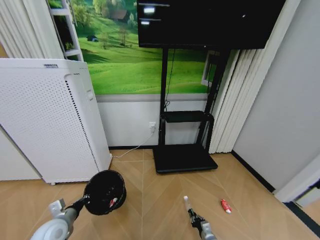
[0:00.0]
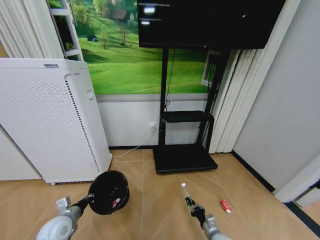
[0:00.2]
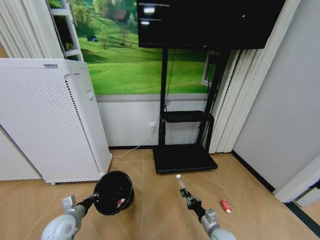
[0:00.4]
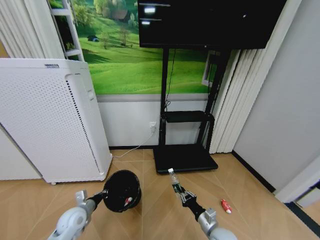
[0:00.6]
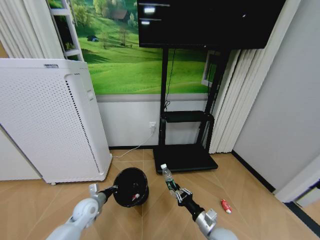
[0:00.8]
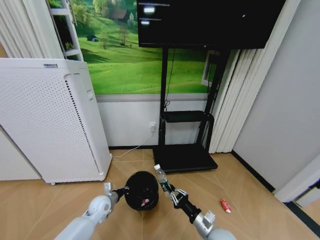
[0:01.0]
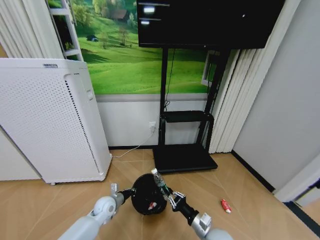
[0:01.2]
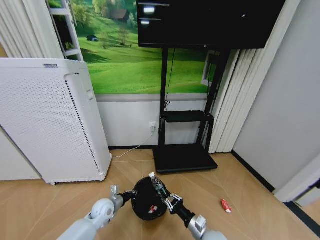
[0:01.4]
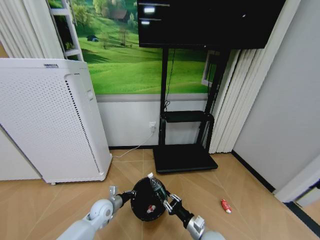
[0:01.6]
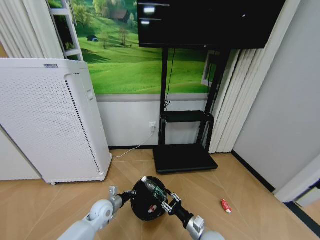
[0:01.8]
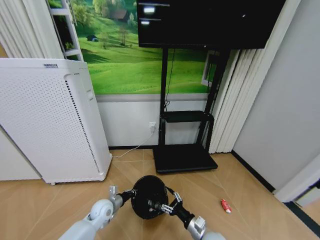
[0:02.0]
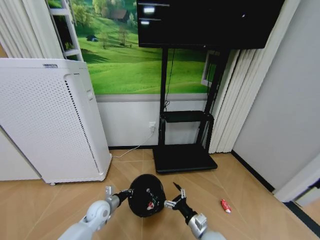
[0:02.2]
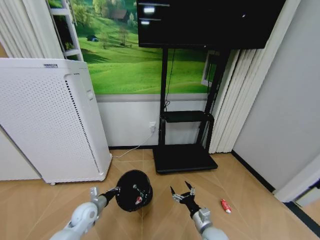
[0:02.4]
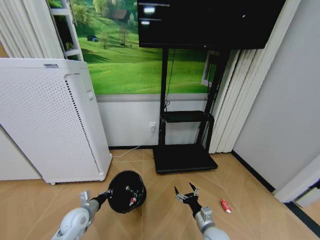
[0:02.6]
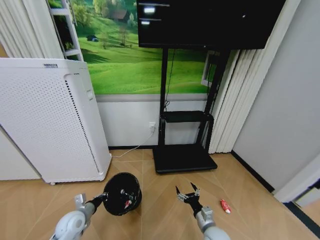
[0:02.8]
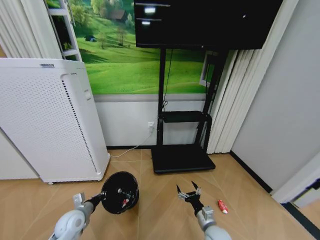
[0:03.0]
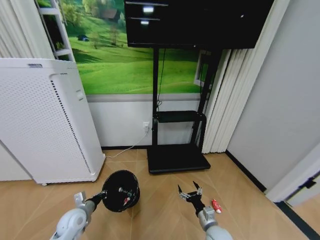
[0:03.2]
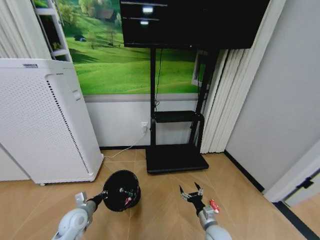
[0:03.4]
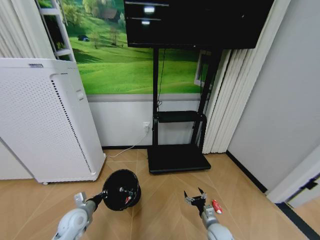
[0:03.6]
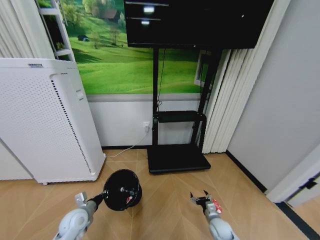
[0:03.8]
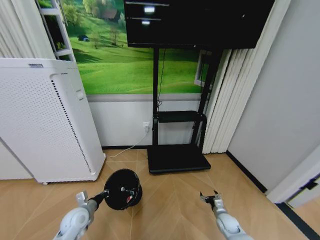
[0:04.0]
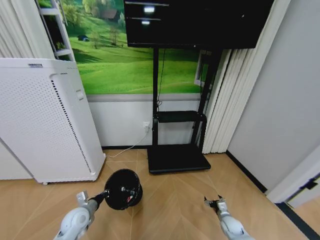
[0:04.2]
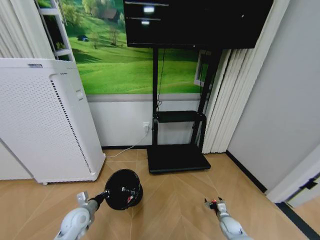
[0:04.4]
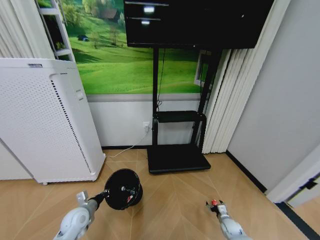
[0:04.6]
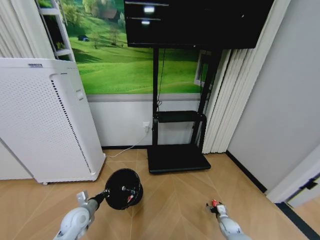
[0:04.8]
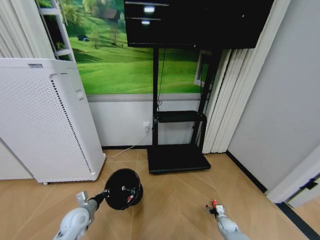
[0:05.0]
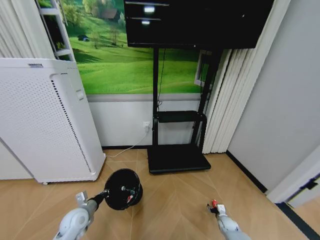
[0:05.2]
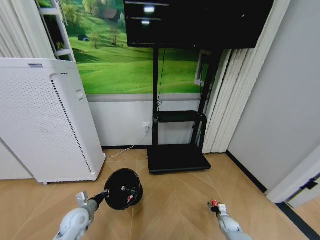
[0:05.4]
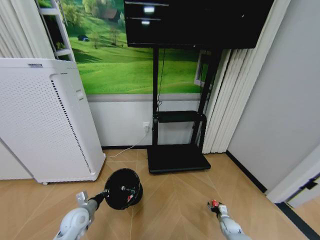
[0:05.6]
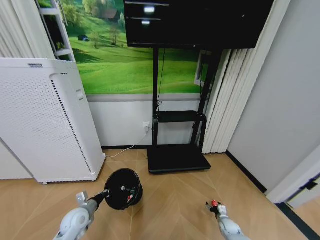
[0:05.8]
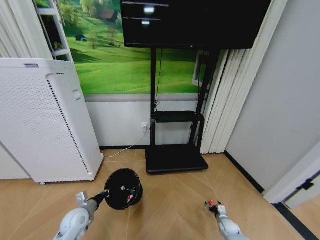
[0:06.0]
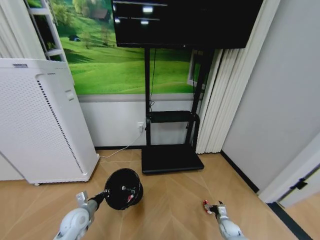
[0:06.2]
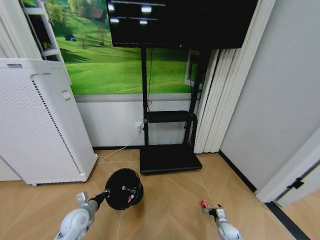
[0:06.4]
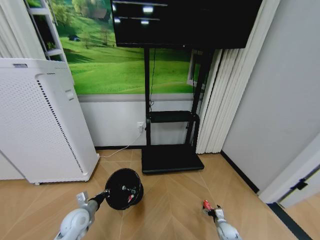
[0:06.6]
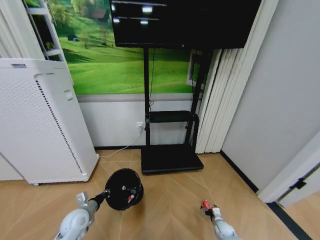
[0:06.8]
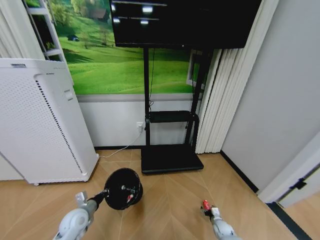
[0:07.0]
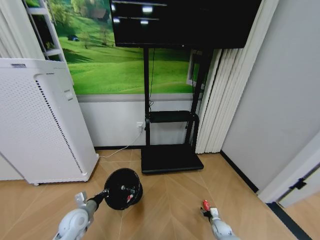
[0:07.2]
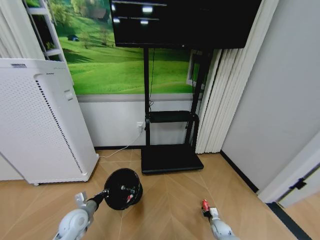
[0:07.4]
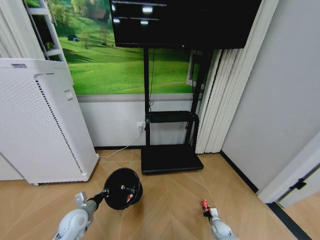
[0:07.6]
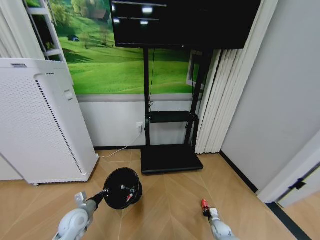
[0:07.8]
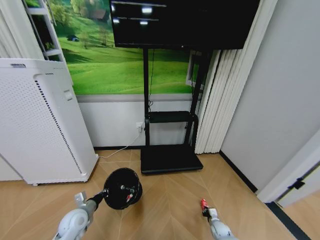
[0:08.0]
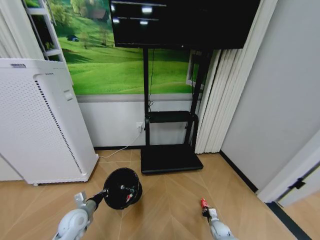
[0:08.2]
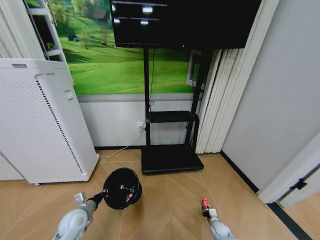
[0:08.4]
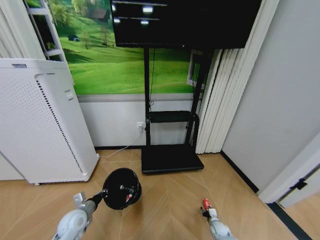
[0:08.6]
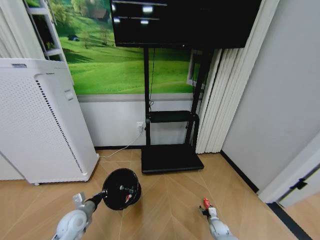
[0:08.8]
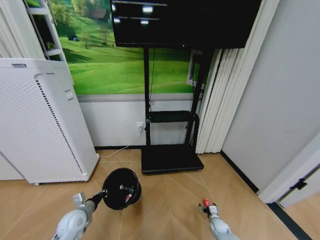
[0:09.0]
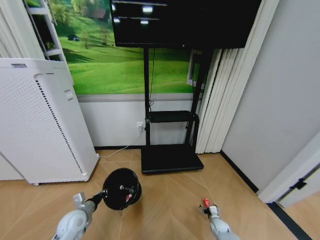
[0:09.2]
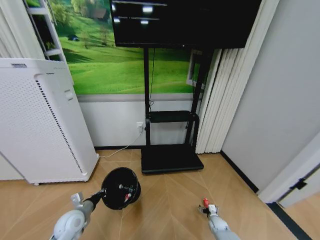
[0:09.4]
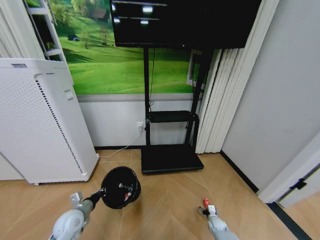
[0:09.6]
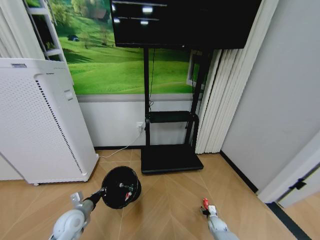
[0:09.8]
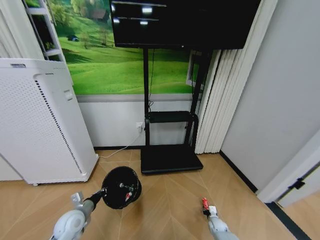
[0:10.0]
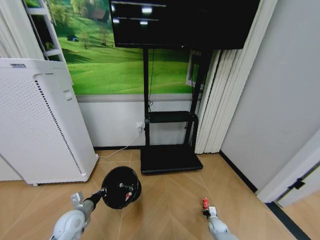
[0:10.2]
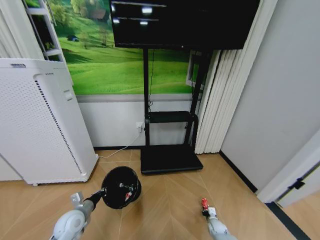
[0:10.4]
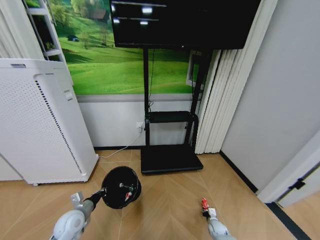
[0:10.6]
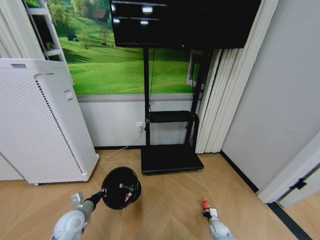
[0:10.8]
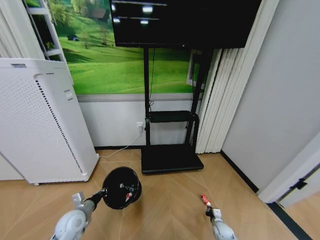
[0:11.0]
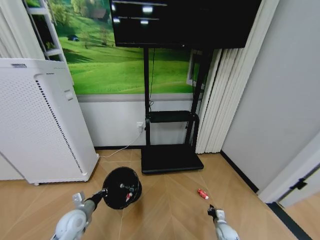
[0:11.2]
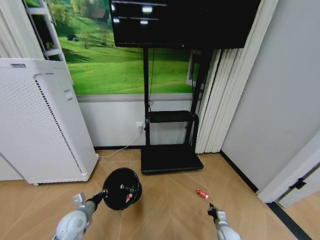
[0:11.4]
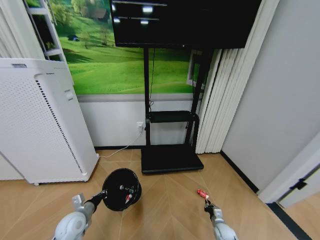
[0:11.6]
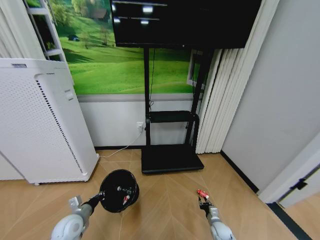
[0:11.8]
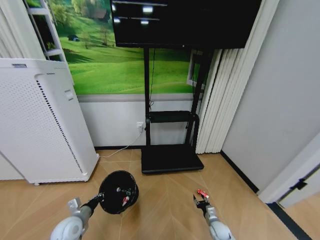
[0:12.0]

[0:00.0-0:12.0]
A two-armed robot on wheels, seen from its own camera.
Task of the whole recording: Pick up the trash bin and place the garbage on the floor into it.
0:00.0 to 0:01.6: The right gripper shifts some 20 cm upward and to the left; the left gripper shifts approximately 15 cm to the right, forward and downward.
0:01.6 to 0:03.0: The right gripper opens up, while the left gripper shifts some 10 cm to the left and backward.
0:03.0 to 0:04.4: The right gripper is displaced to the right, downward and forward by about 25 cm.
0:04.4 to 0:06.0: The grippers make only small movements.
0:06.0 to 0:07.6: The right gripper closes up.
0:07.6 to 0:09.0: The right gripper opens up.
0:09.0 to 0:10.4: The right gripper closes up.
0:10.4 to 0:12.0: The right gripper travels upward by some 5 cm.

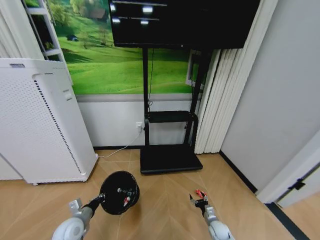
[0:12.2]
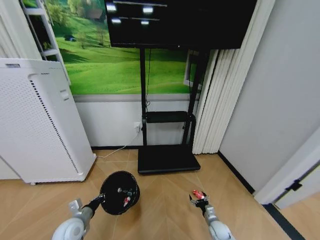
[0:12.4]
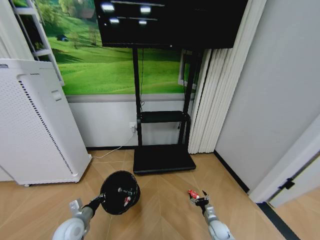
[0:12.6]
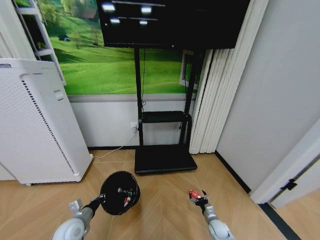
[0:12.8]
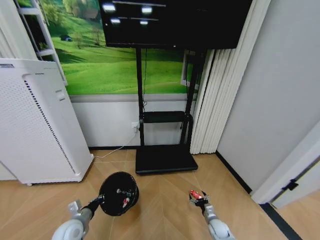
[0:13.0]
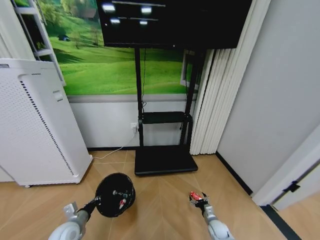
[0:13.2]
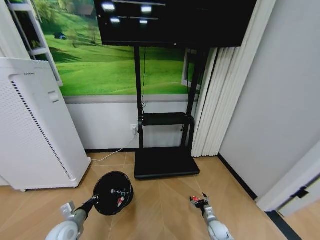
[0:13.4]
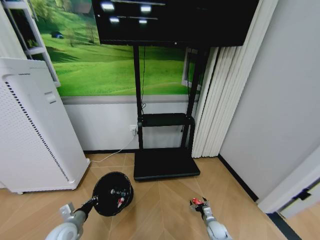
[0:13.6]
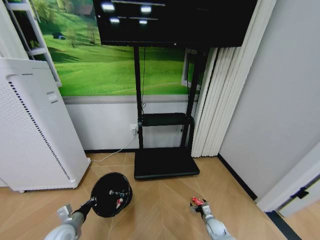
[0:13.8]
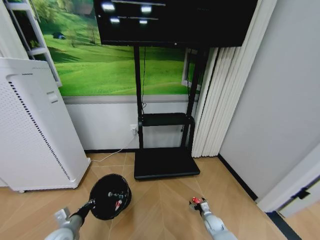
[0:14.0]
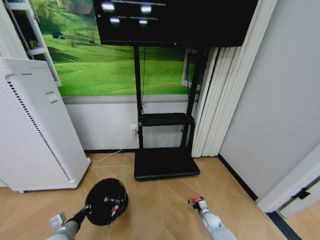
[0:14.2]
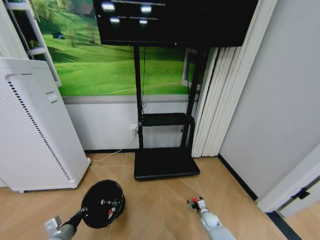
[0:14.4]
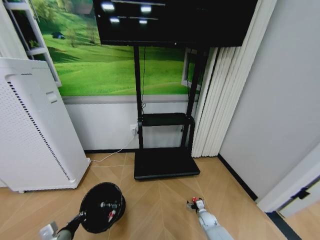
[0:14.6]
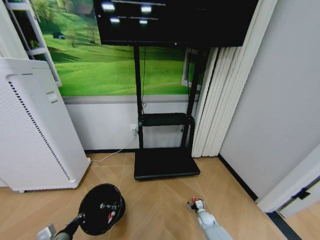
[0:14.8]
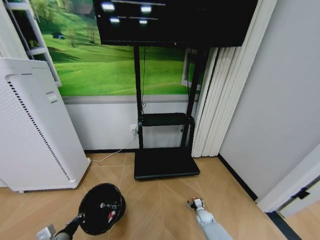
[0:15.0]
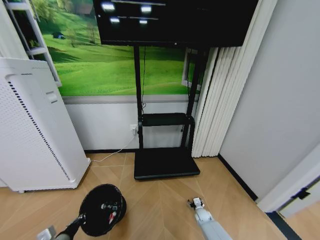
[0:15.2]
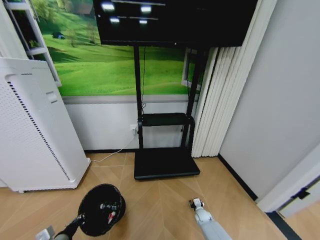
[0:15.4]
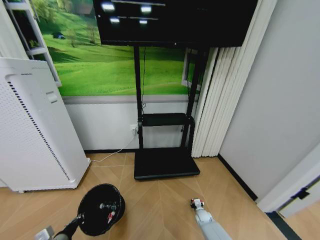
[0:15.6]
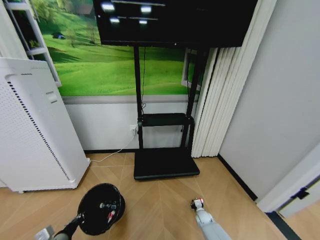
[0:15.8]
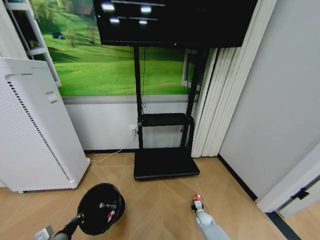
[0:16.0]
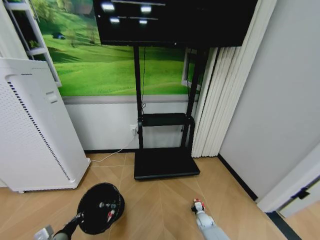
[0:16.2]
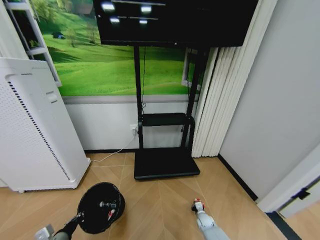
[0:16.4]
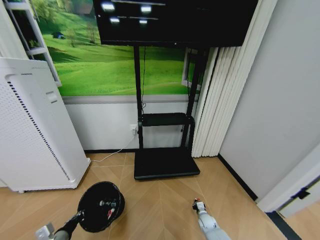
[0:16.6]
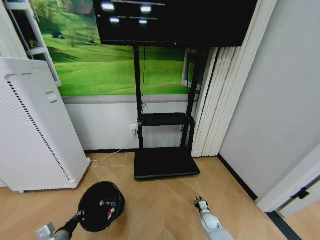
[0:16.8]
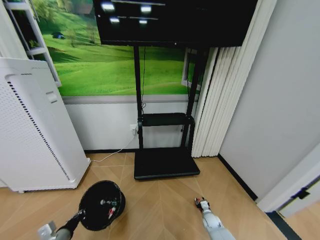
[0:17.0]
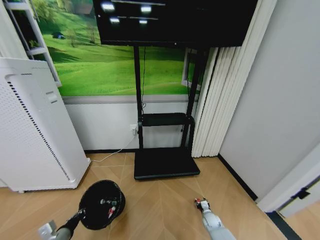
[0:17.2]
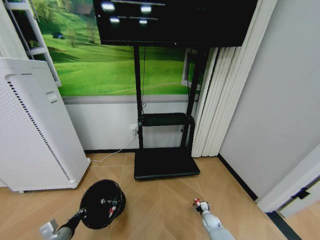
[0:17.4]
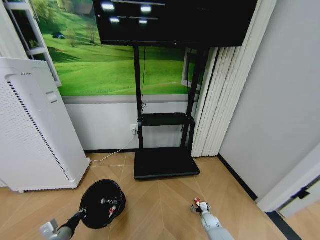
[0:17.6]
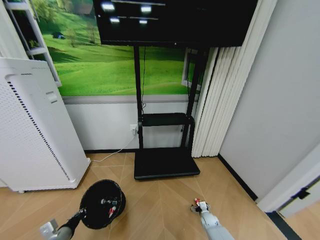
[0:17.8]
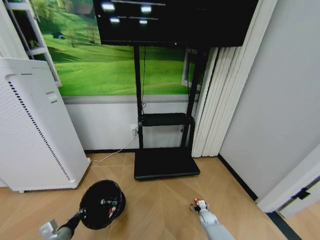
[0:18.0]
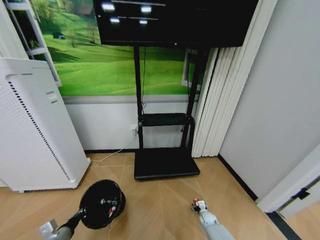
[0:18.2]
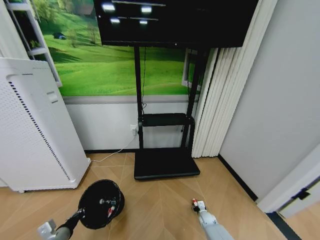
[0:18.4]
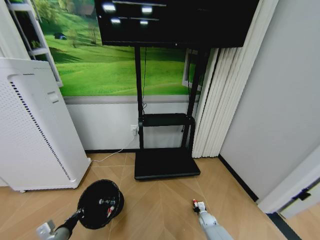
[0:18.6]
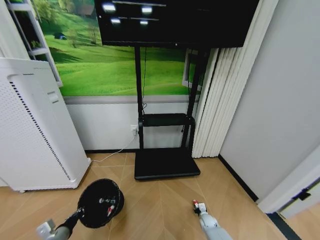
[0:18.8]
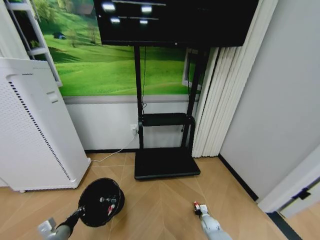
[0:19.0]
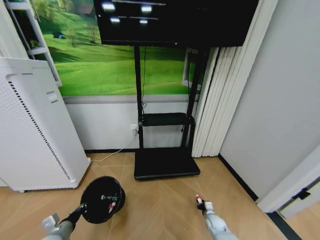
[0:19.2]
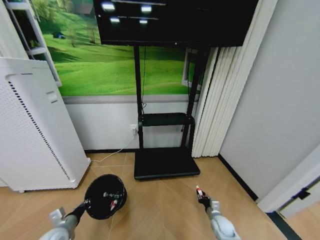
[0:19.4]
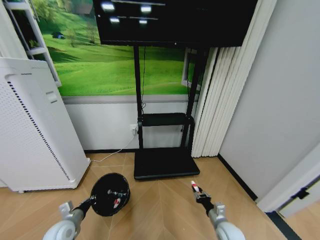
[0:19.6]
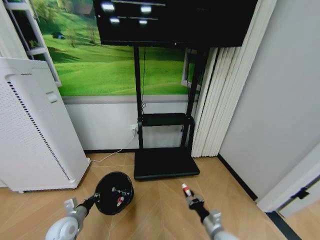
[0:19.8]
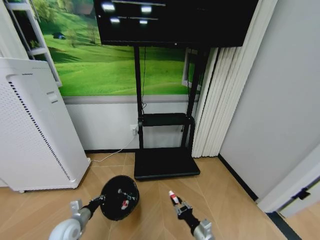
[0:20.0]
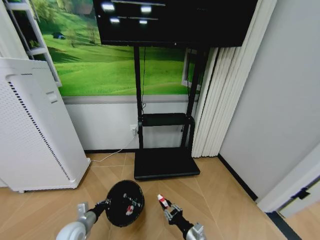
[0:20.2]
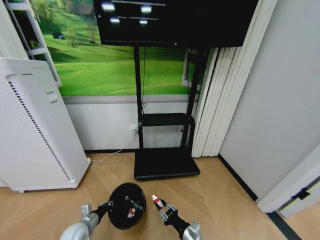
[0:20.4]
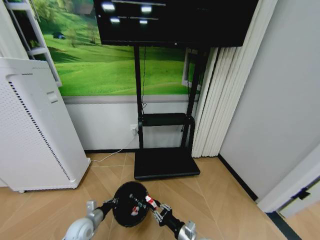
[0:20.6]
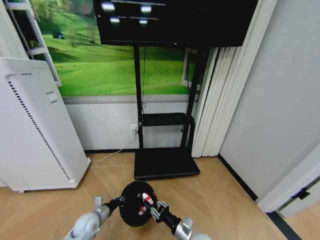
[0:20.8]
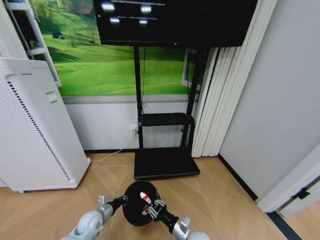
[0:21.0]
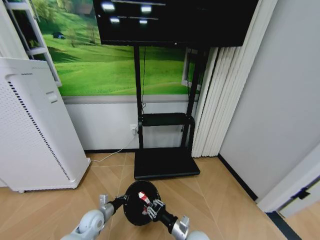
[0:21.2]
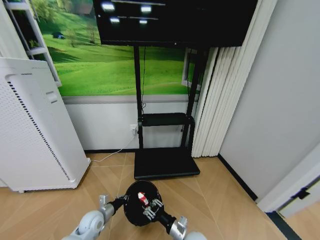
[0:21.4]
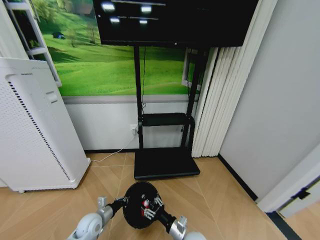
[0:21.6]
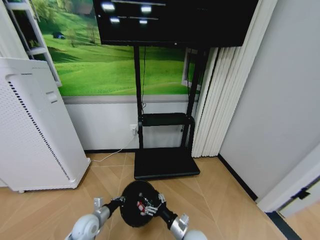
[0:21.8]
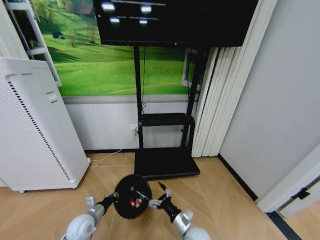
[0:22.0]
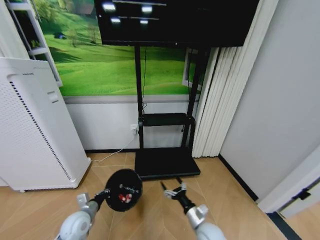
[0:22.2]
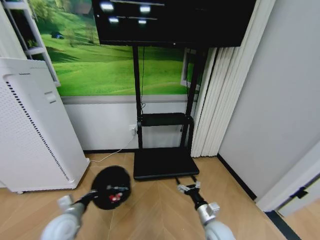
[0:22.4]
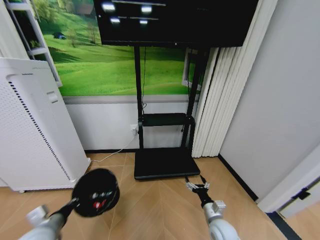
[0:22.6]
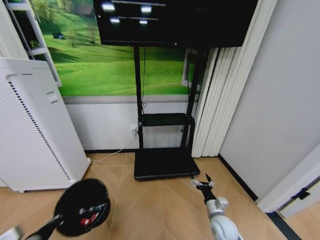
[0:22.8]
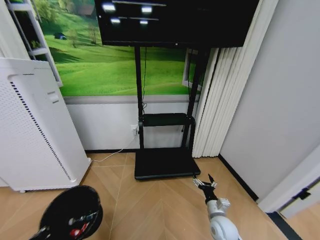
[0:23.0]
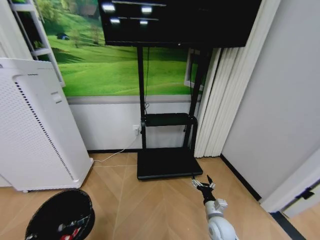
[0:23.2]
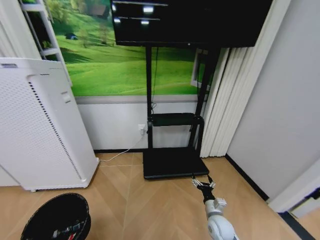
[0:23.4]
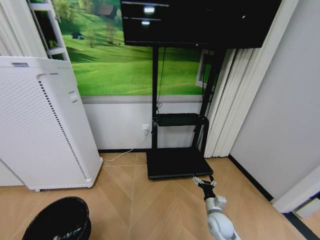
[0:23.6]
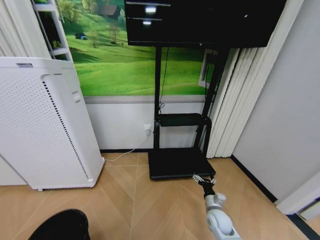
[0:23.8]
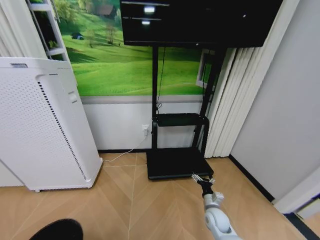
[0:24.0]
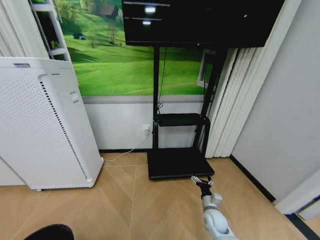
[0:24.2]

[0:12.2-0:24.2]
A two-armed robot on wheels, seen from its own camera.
Task of the whole recording: Pick up the trash bin and place the garbage on the floor into it.
0:13.8 to 0:15.2: The right gripper is displaced forward by approximately 5 cm. Meanwhile the left gripper moves backward, roughly 5 cm.
0:15.2 to 0:16.6: The right gripper closes up.
0:16.6 to 0:18.2: The right gripper opens its fingers.
0:18.2 to 0:19.8: The right gripper shifts about 25 cm upward and backward, and closes its fingers. The left gripper shifts some 10 cm forward.
0:19.8 to 0:21.2: The right gripper shifts roughly 10 cm to the left; the left gripper shifts some 10 cm to the right.
0:21.2 to 0:22.6: The right gripper heads to the right, covering approximately 10 cm, and opens. Meanwhile the left gripper travels upward, backward and to the left by approximately 20 cm.
0:22.6 to 0:24.2: The right gripper is displaced forward by some 5 cm, while the left gripper heads backward, covering about 15 cm.
